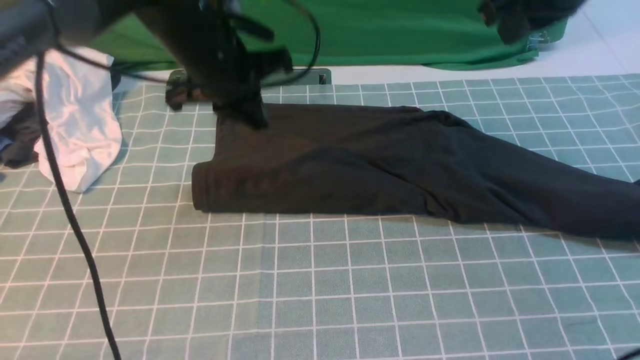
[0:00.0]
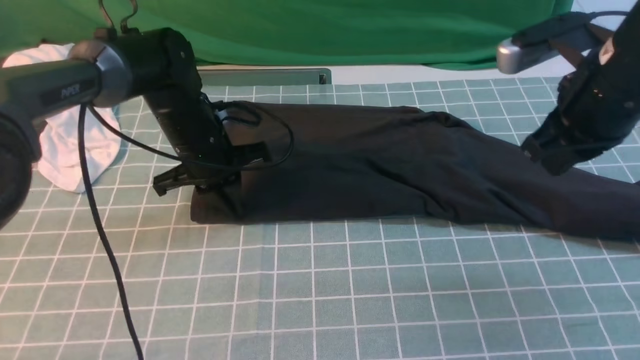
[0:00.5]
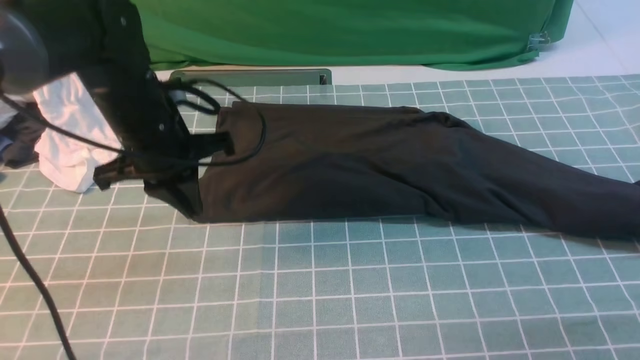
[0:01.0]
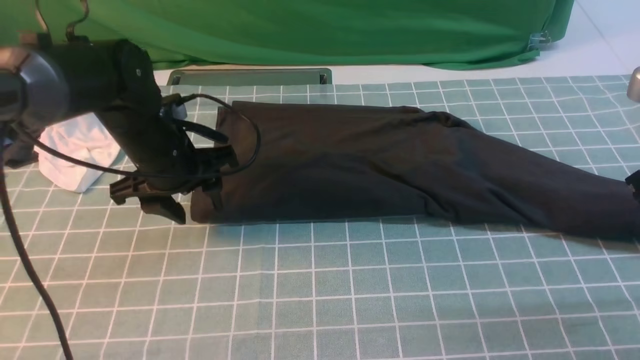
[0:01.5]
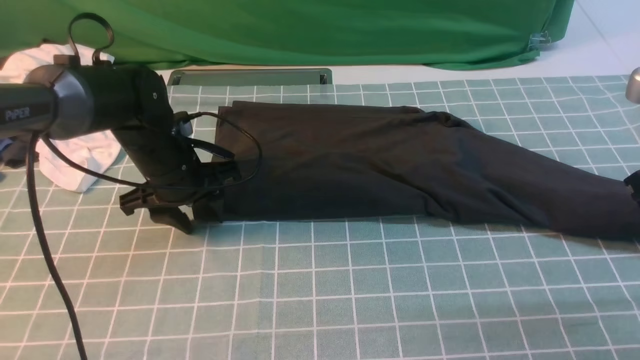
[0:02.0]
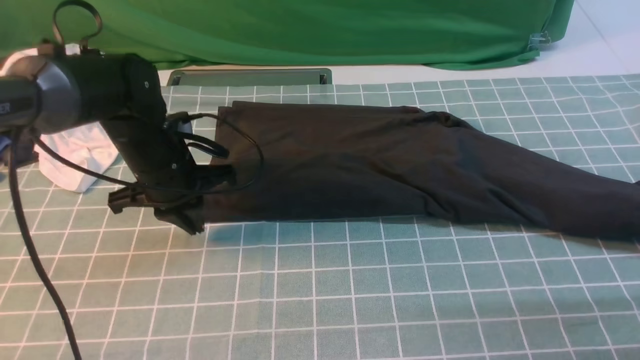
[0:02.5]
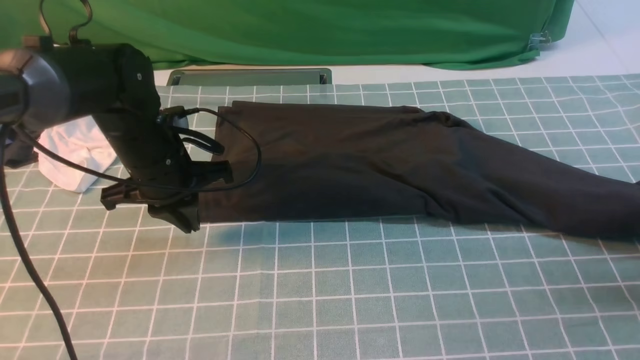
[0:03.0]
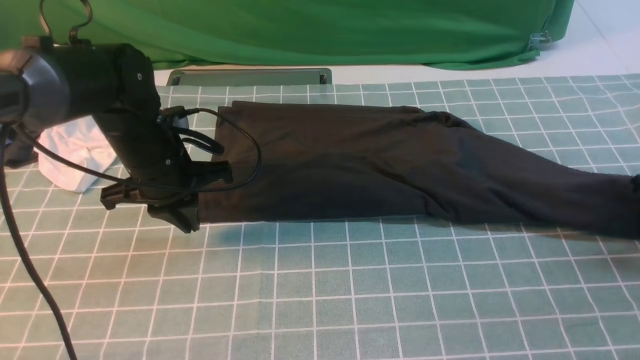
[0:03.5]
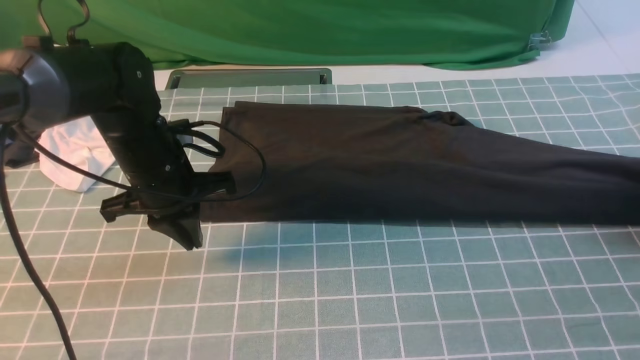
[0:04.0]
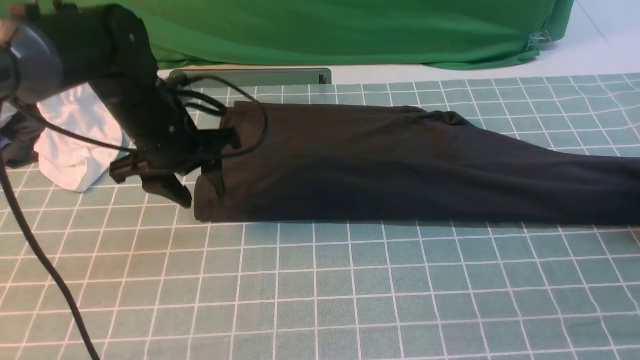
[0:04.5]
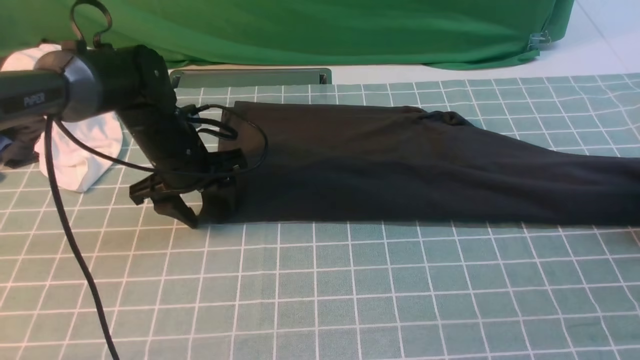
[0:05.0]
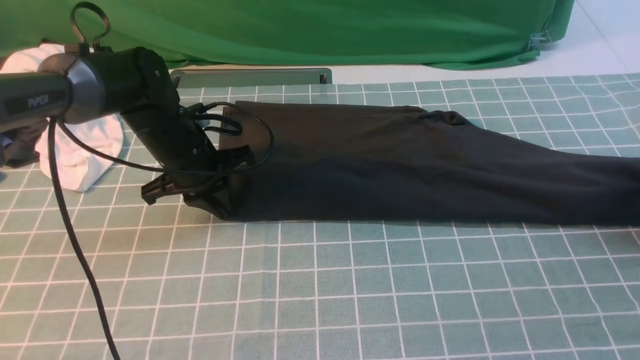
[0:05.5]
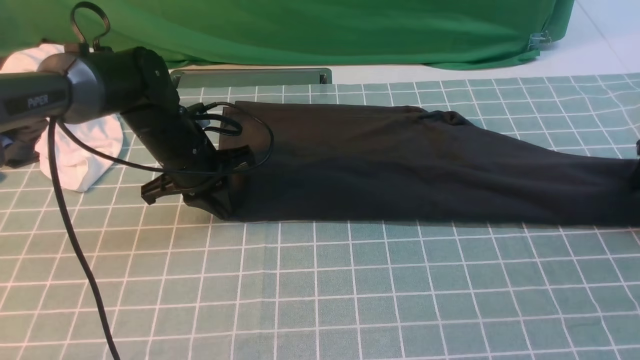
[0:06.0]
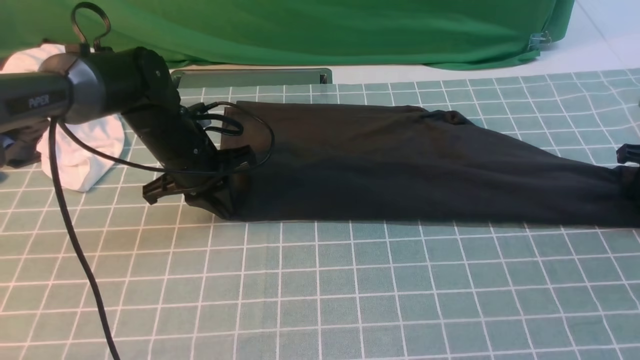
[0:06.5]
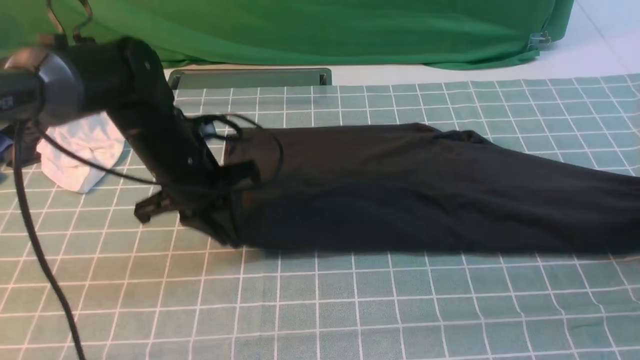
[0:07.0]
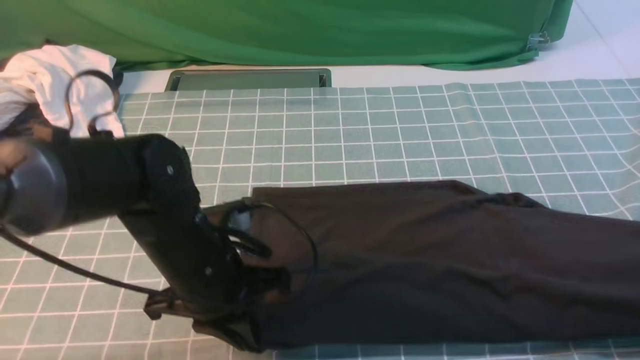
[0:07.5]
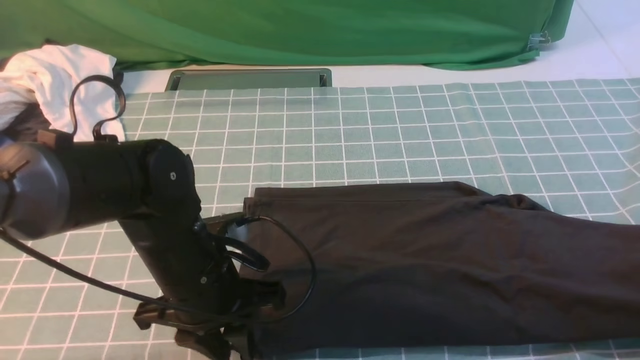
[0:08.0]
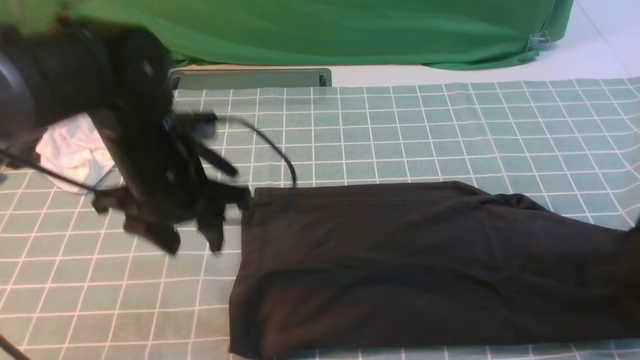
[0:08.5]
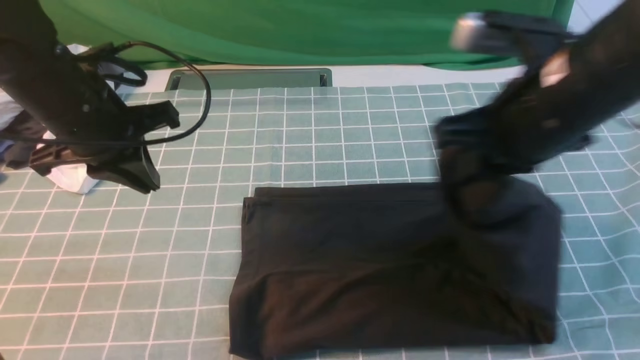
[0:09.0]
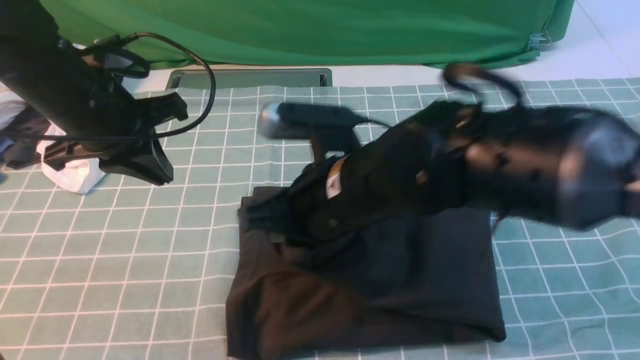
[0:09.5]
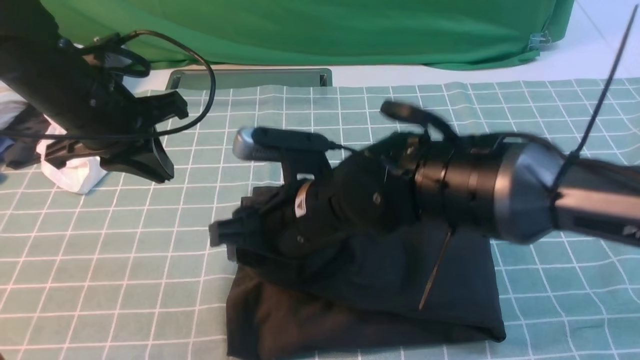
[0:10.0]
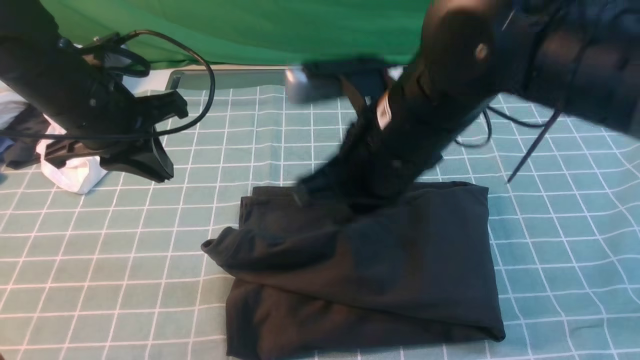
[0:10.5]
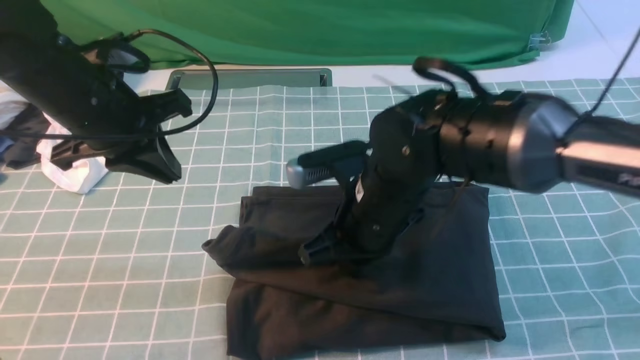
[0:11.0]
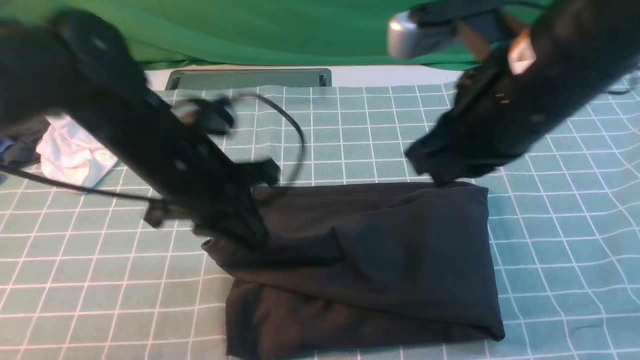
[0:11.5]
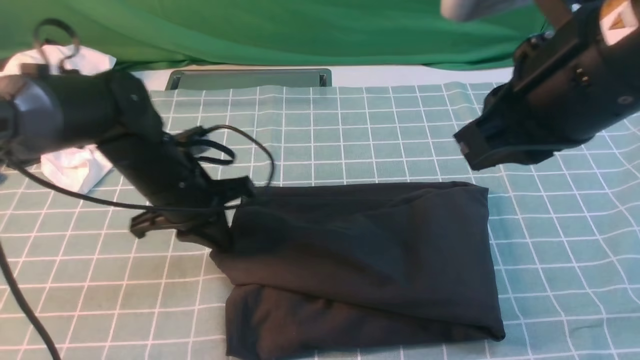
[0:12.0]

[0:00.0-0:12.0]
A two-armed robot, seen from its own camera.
Step, 0:00.0 to 0:08.0: use the right arm to clamp the right edge of the fabric.
Step, 0:08.5 to 0:10.5: use the right arm to drag the right edge of the fabric to the left and folds it over the left edge.
0:00.0 to 0:02.0: The right gripper moves backward, to the right and downward, some 20 cm. The left gripper travels downward by some 10 cm, and opens its fingers.
0:02.0 to 0:04.0: The right gripper shifts about 20 cm to the right, downward and forward, and opens, then closes once more. The left gripper closes up.
0:04.0 to 0:06.0: The left gripper goes roughly 5 cm forward, and opens, then closes once more. The right gripper opens.
0:06.0 to 0:08.0: The right gripper travels backward and upward by about 15 cm, and closes up; the left gripper is displaced backward by roughly 15 cm, and opens its fingers.
0:08.0 to 0:10.0: The right gripper shifts approximately 50 cm to the left, and opens its fingers; the left gripper goes about 15 cm upward, to the left and forward, and closes up.
0:10.0 to 0:12.0: The left gripper travels downward by about 10 cm, while the right gripper goes approximately 20 cm to the right and upward, and closes its fingers.

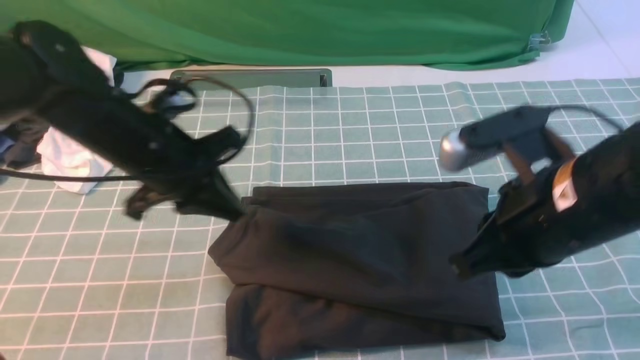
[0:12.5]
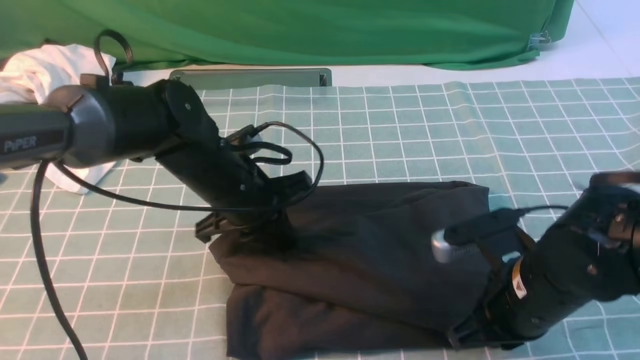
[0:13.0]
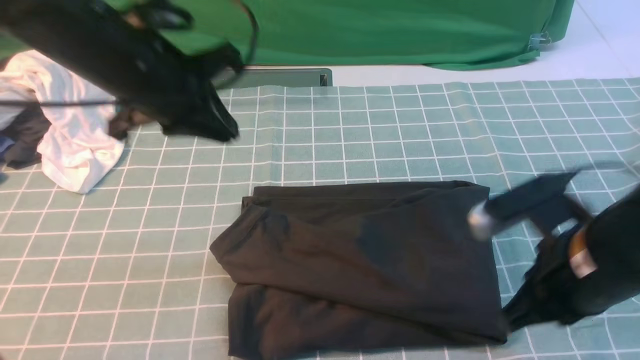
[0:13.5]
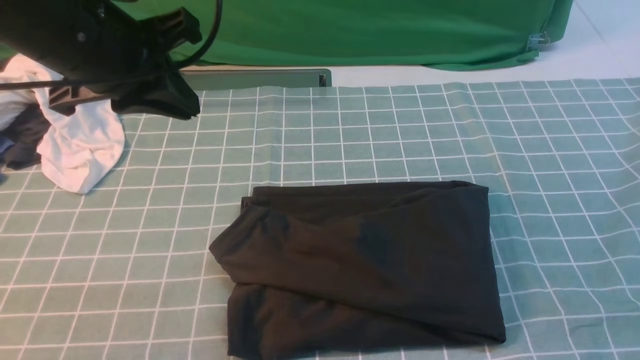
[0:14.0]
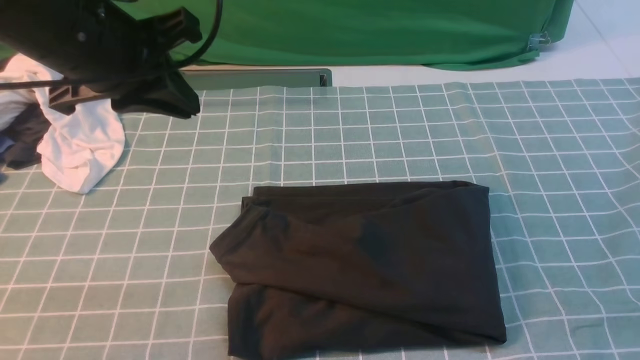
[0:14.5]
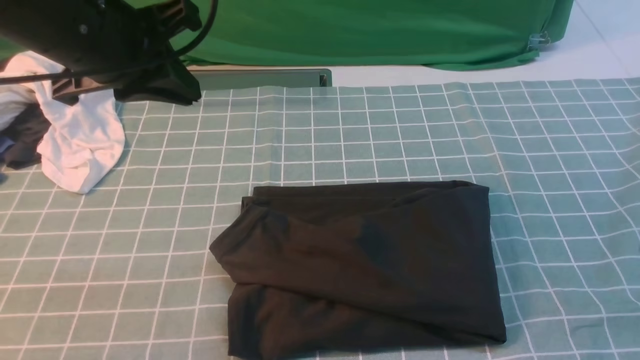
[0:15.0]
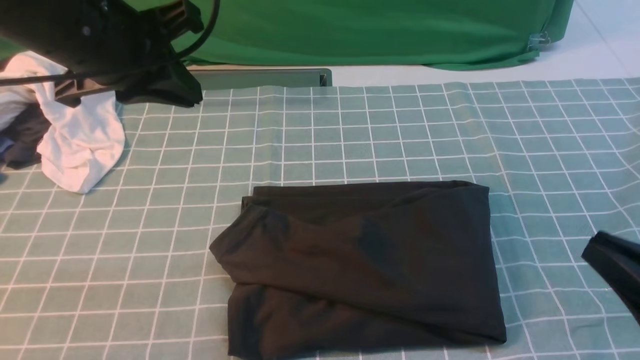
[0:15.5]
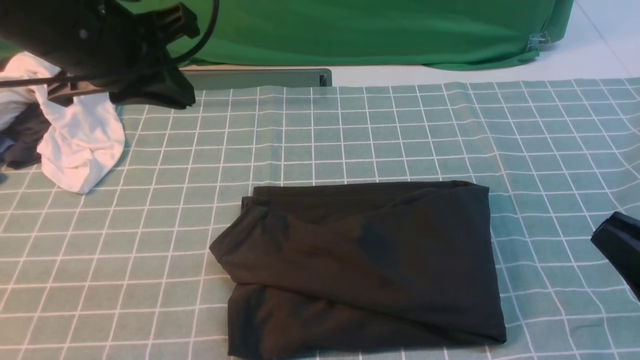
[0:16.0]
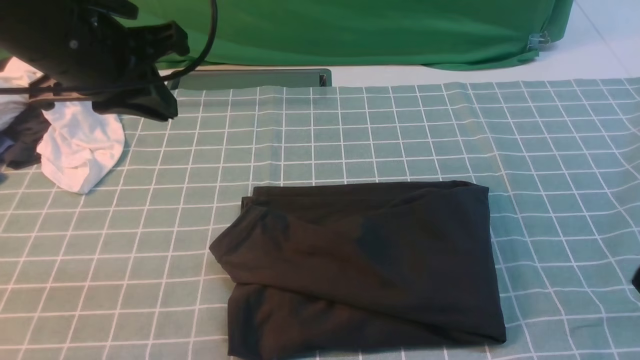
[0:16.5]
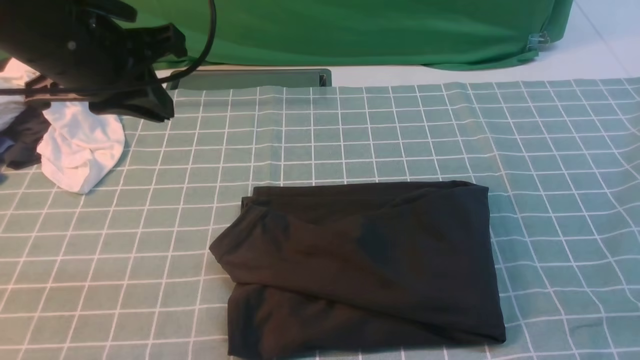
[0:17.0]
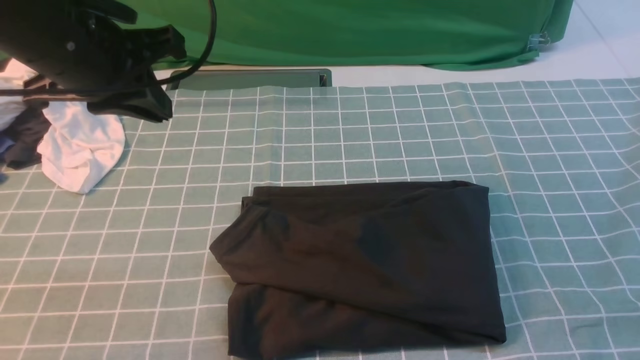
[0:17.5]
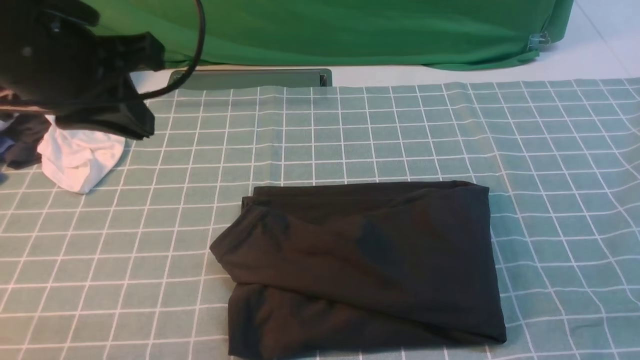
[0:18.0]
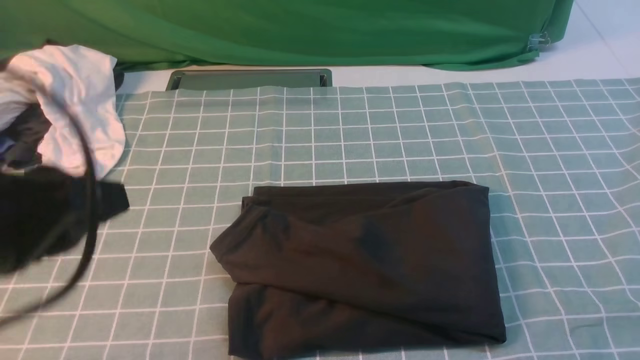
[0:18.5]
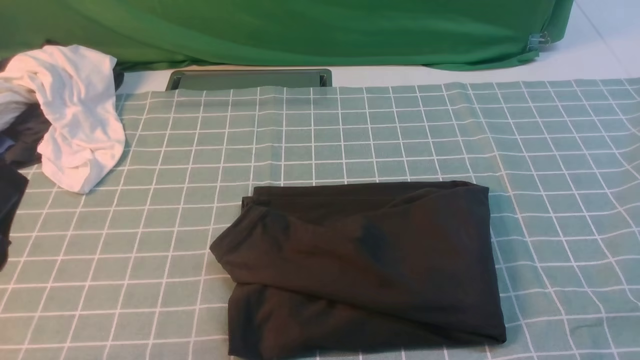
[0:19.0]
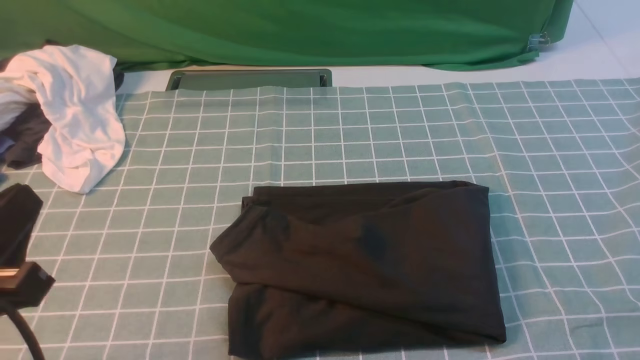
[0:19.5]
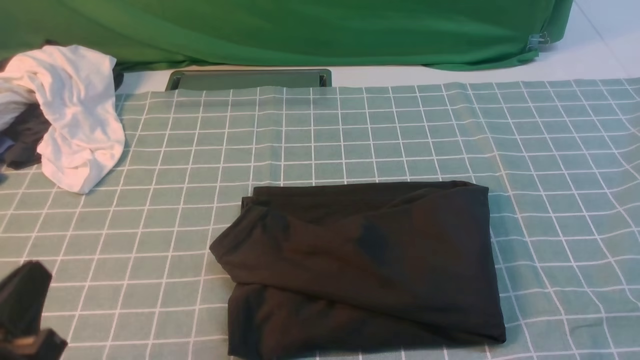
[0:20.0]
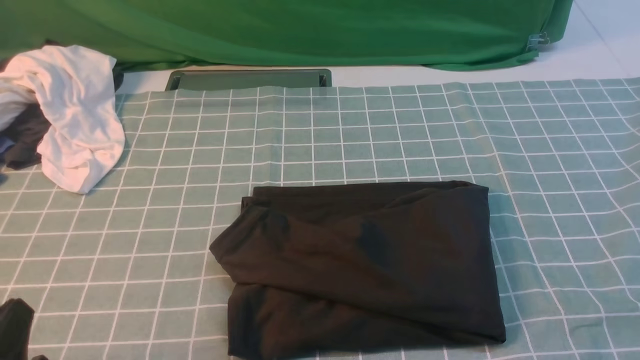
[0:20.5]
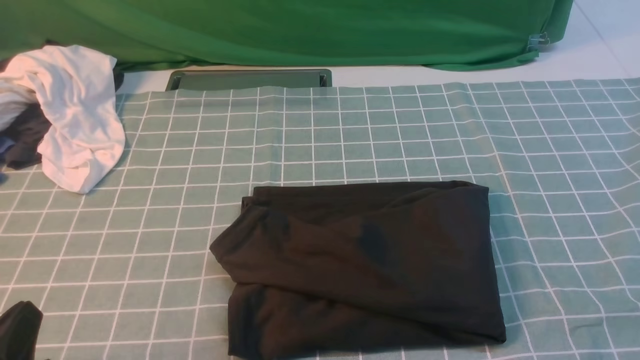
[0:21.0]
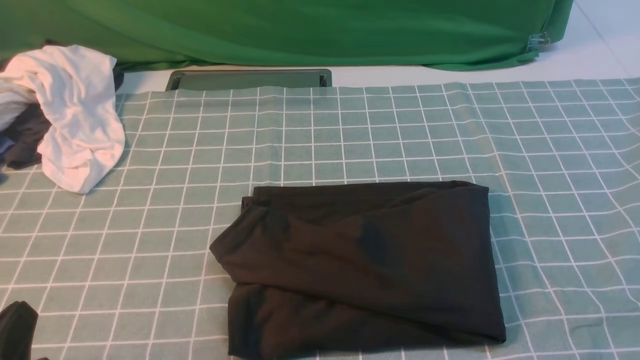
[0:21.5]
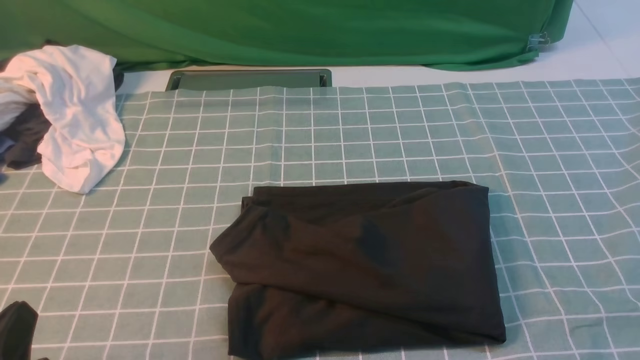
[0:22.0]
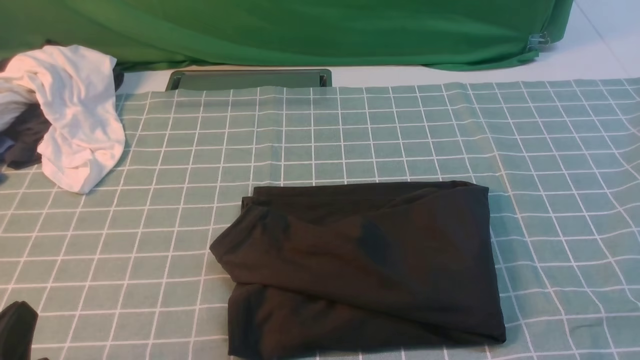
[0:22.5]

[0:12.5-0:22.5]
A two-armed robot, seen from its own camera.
0:12.5 to 0:14.5: The right gripper goes up and down, roughly 20 cm each way, reversing 2 times. Meanwhile the left gripper moves upward, some 15 cm.
0:16.5 to 0:18.5: The left gripper travels backward by approximately 20 cm.
0:18.5 to 0:20.5: The left gripper goes about 15 cm downward and backward.
0:20.5 to 0:22.5: Both grippers stay about where they are.
